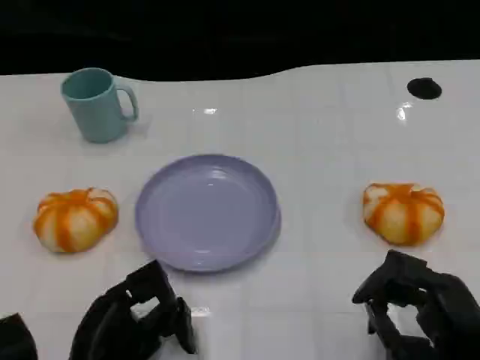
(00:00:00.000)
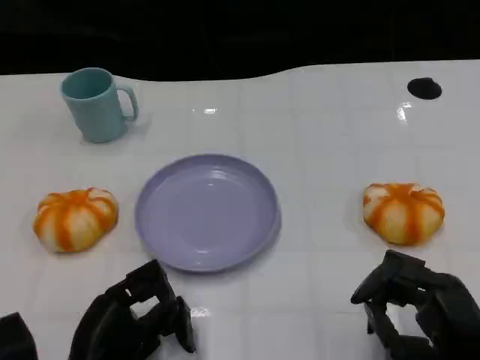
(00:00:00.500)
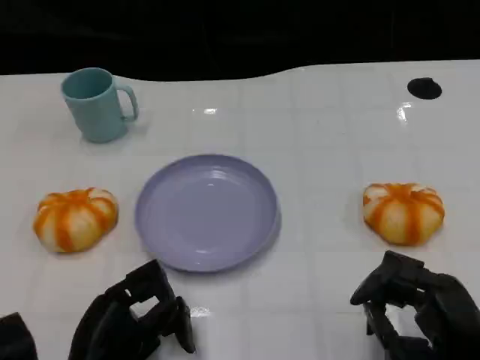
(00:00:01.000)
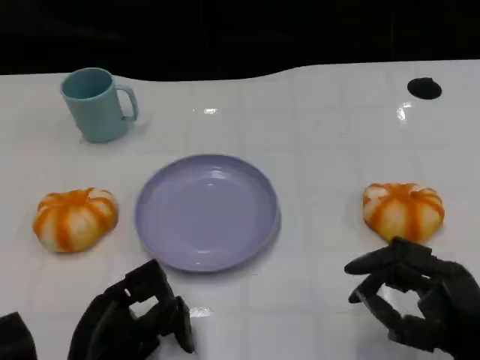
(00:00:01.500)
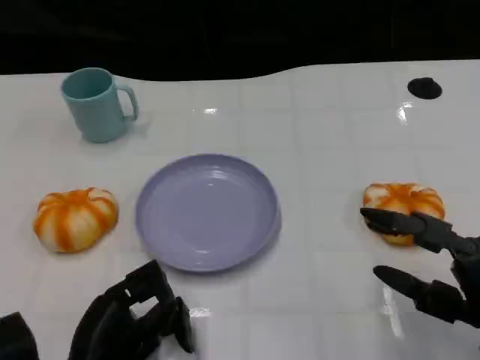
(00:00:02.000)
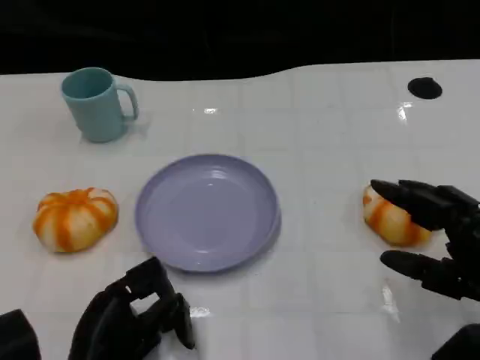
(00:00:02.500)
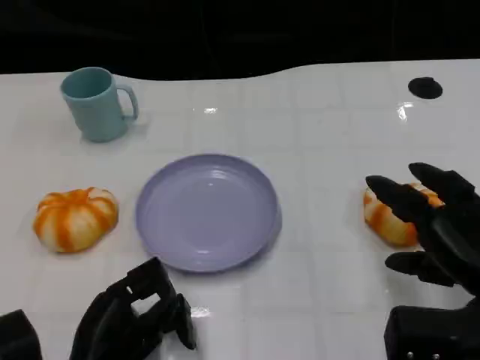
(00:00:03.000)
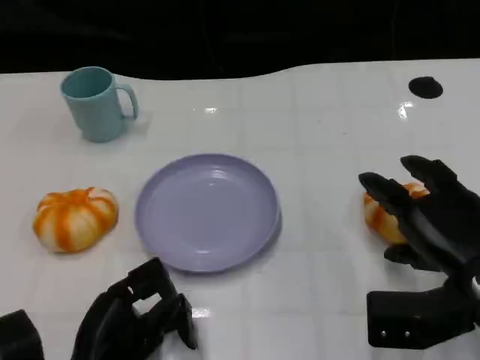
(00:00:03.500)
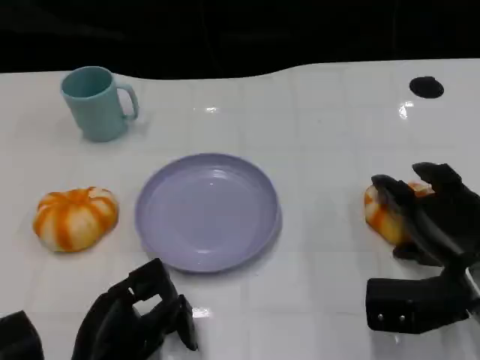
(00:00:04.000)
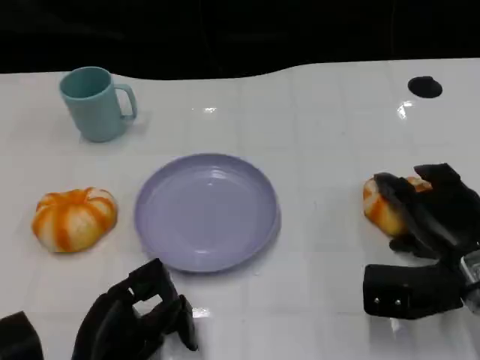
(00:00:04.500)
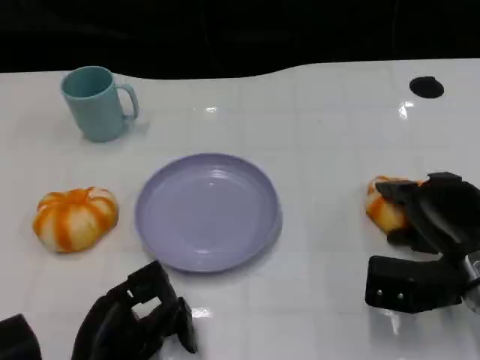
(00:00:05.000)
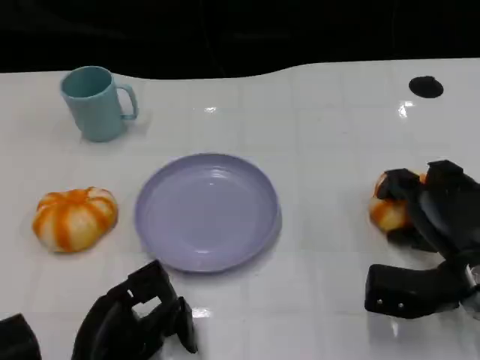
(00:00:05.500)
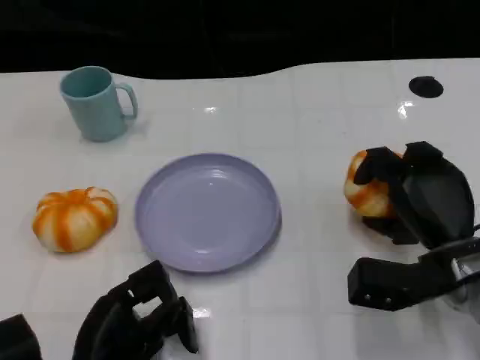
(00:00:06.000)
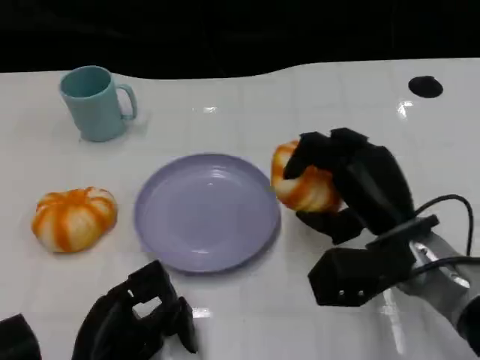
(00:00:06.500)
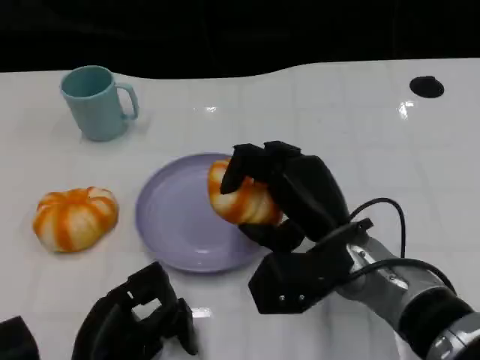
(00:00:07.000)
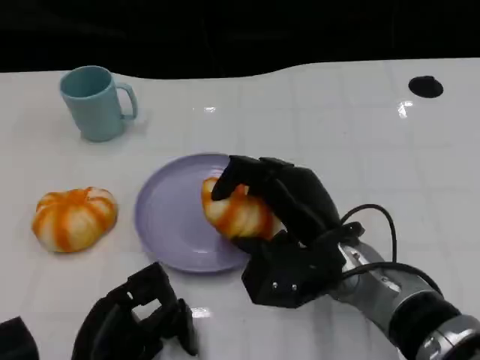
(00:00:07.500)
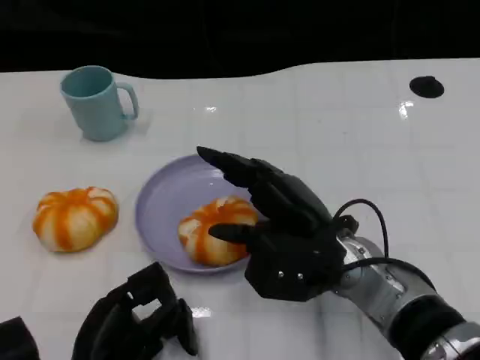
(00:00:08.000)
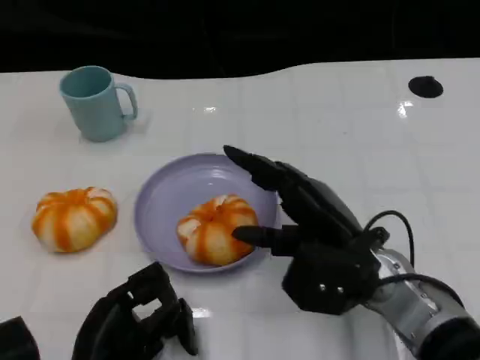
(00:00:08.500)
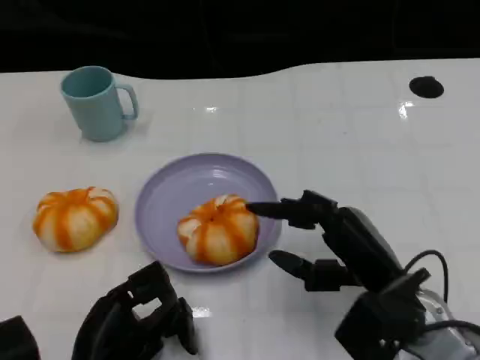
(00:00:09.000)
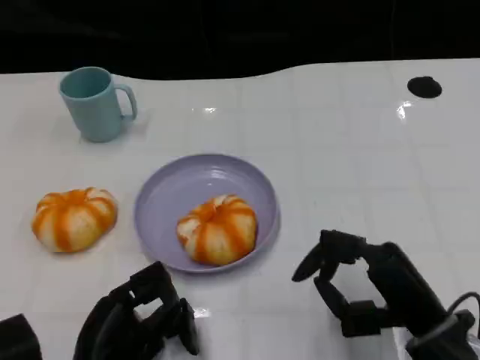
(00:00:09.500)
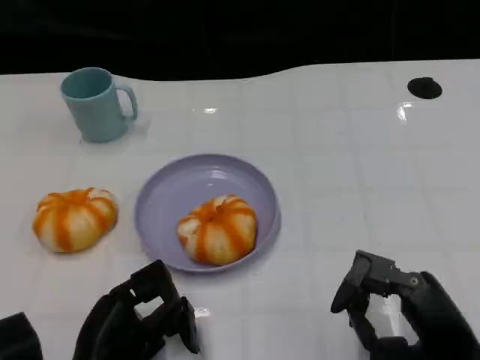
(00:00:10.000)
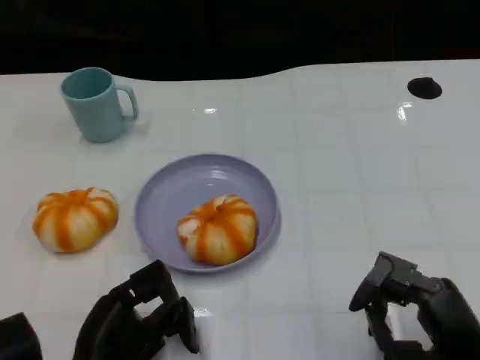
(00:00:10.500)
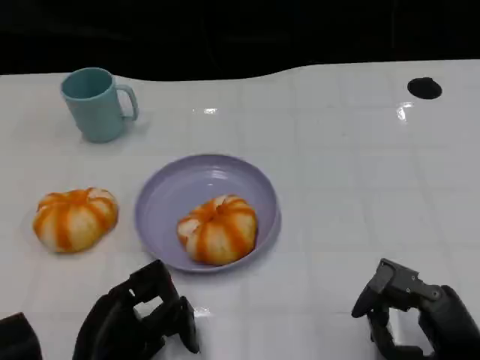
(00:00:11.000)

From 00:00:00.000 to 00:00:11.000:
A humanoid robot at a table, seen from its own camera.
Task of the whole recording: Grasp the bread from the table and place it into the plate.
From 00:00:02.000 to 00:00:03.500: The right hand travels forward by approximately 5 cm.
From 00:00:03.500 to 00:00:05.500: The right hand ends up some 5 cm from where it was.
From 00:00:05.500 to 00:00:07.500: The right hand shifts roughly 15 cm to the left.
From 00:00:07.500 to 00:00:09.000: The right hand heads to the right, covering roughly 5 cm.
From 00:00:09.000 to 00:00:11.000: The right hand moves backward and to the right, about 10 cm.
